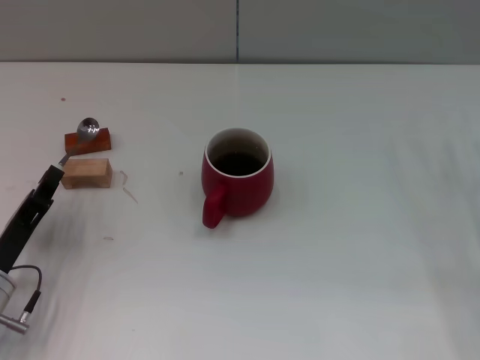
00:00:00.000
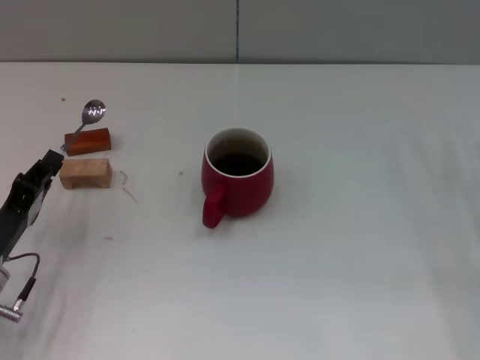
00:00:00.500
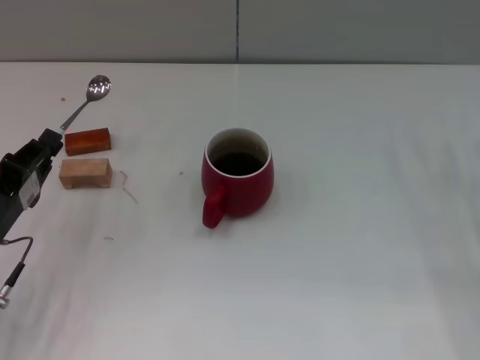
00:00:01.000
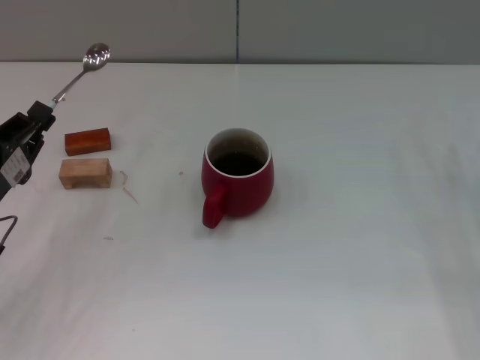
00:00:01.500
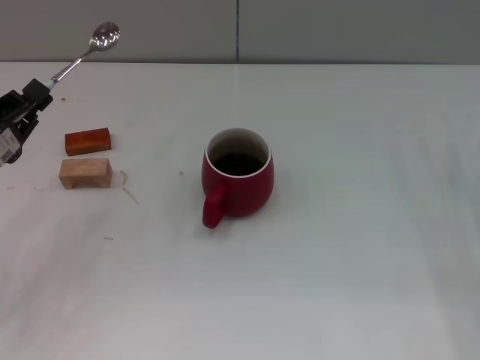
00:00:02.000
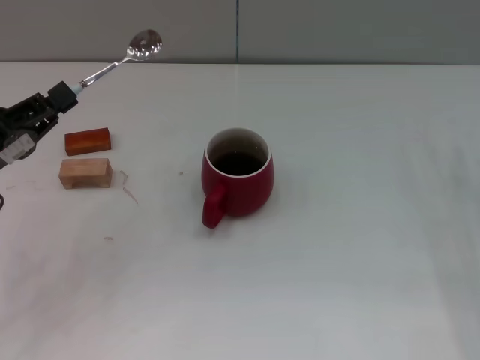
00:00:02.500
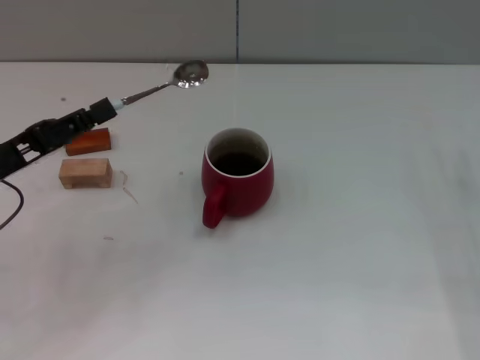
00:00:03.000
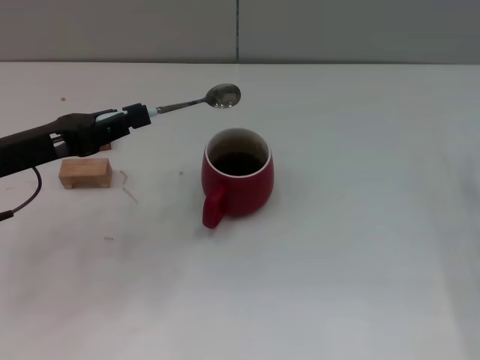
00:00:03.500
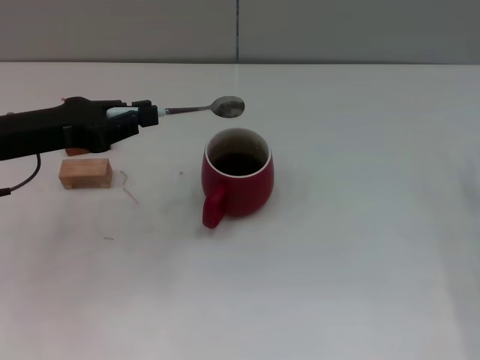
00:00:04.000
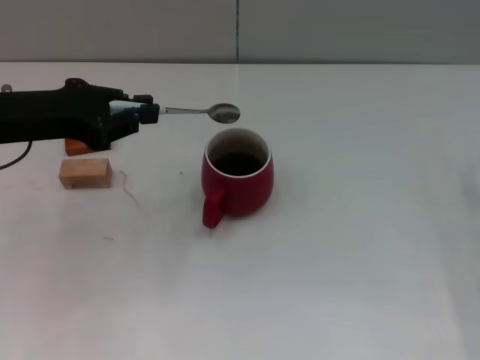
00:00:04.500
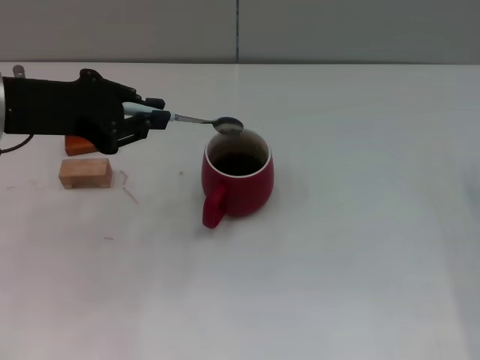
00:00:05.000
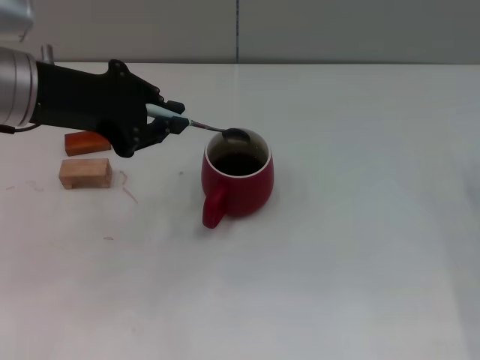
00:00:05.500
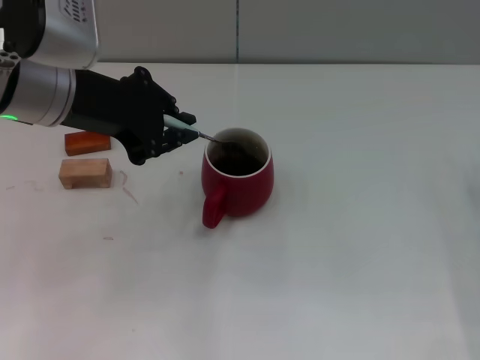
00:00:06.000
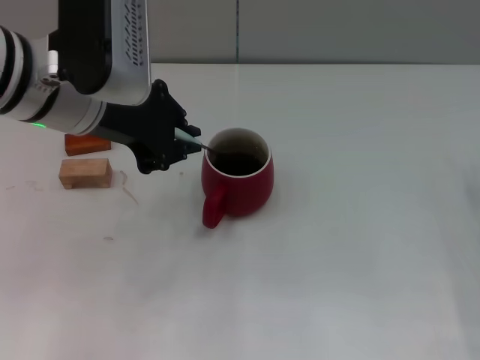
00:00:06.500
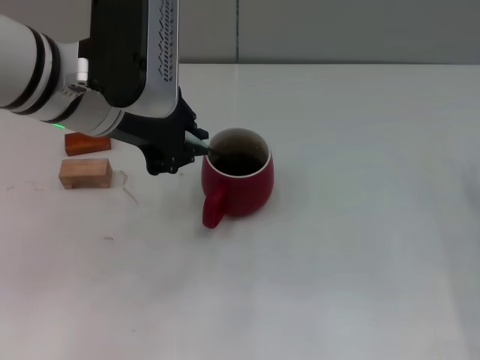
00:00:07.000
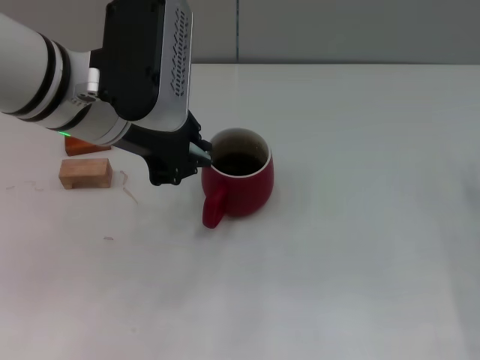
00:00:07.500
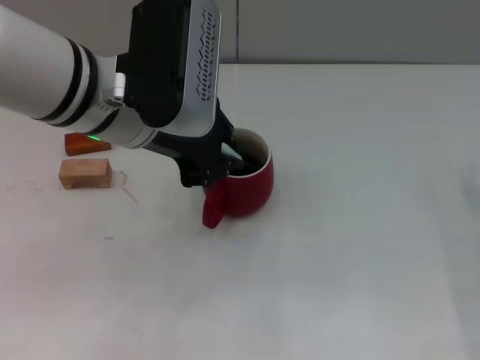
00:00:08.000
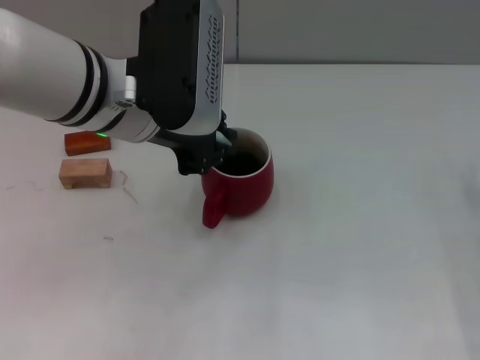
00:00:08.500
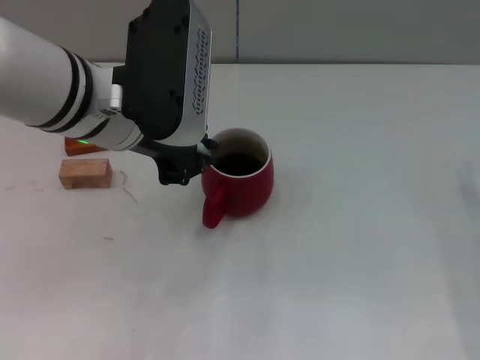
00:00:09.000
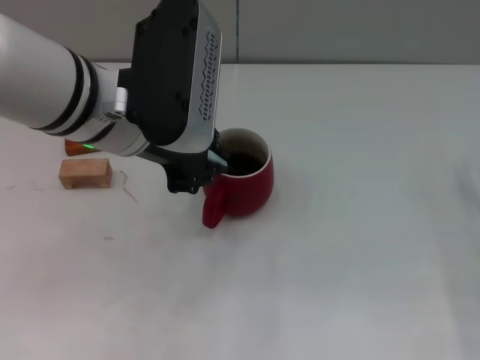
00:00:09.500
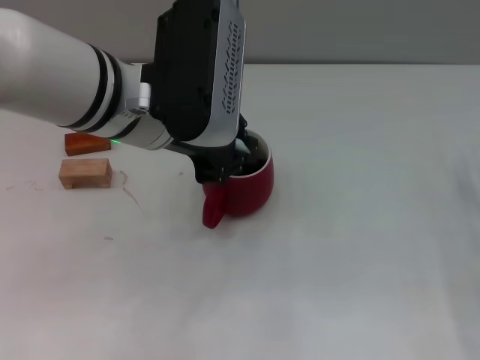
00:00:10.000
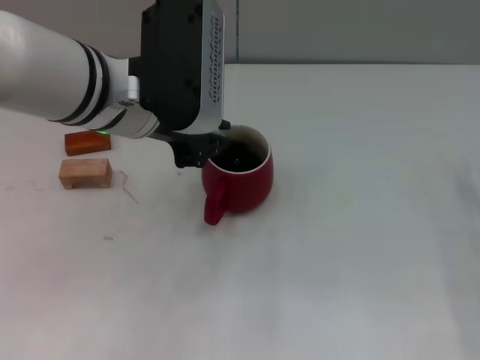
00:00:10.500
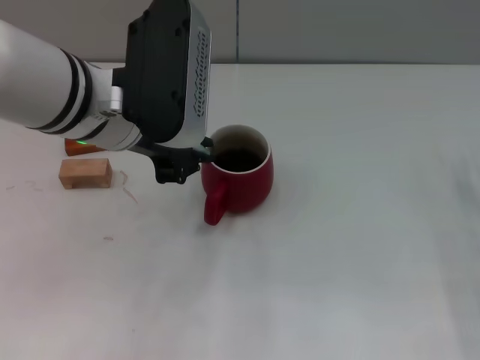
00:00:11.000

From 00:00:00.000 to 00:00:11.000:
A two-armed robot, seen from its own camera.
Task of the whole recording: Move the red cup to the center, lift the blue spoon, stir it three times in the cup, and put the spoon into the cup.
From 00:00:00.000 to 00:00:02.000: The left gripper travels upward by roughly 10 cm.
From 00:00:02.000 to 00:00:03.500: The left gripper moves upward, roughly 5 cm.
From 00:00:03.500 to 00:00:05.500: The left gripper travels upward and to the right by about 10 cm.
From 00:00:05.500 to 00:00:07.500: The left gripper heads to the right, covering some 10 cm.
From 00:00:07.500 to 00:00:11.000: There are only small adjustments of the grippers.

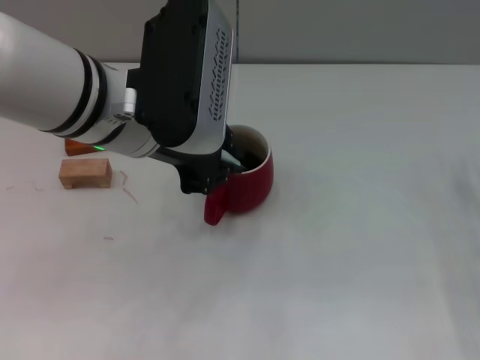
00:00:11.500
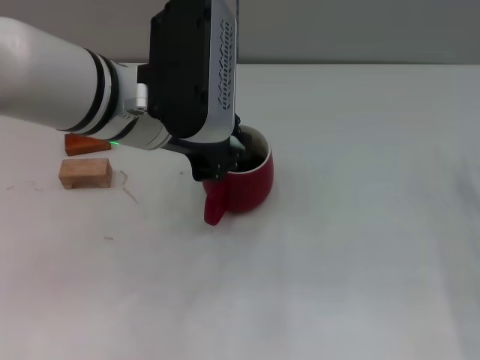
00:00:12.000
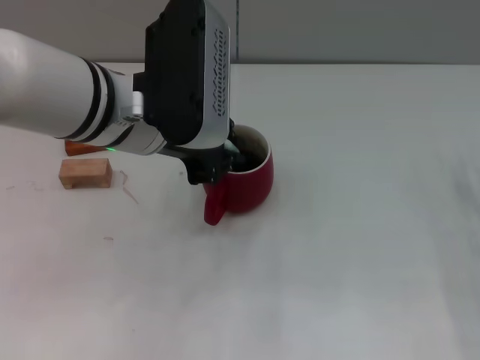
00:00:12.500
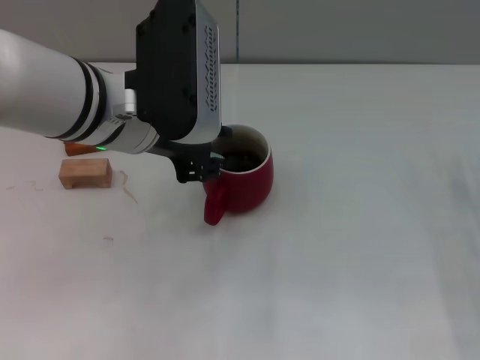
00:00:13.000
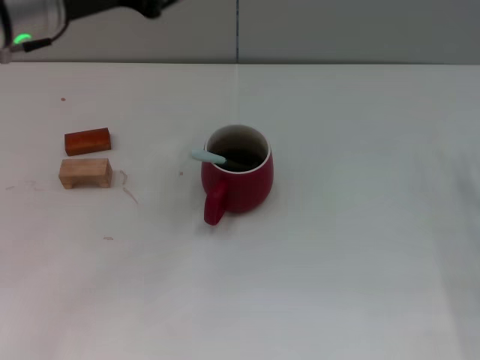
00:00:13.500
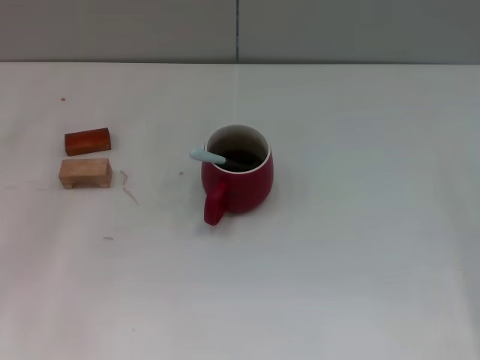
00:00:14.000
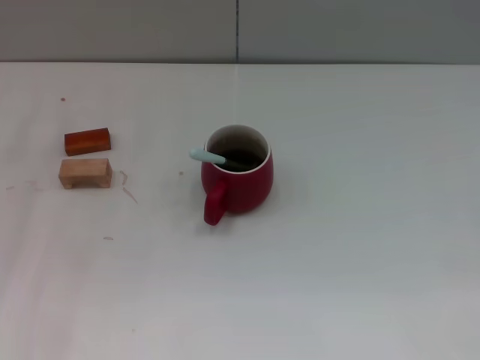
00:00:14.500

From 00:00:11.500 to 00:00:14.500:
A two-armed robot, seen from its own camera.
Task of the whole recording: Move the red cup to the center, lift the blue spoon, stir it three times in the cup, and put the spoon into the cup.
From 00:00:11.500 to 00:00:13.000: The grippers move only a little.
From 00:00:13.000 to 00:00:14.500: The left gripper is displaced to the left and downward by some 20 cm. The right gripper is displaced to the right by roughly 5 cm.

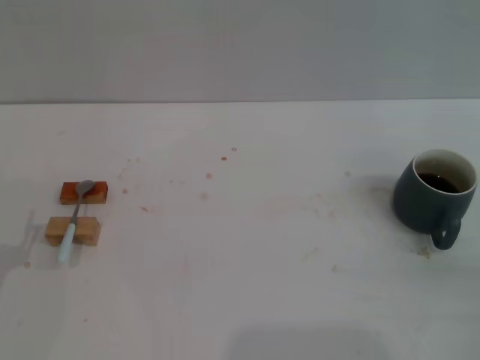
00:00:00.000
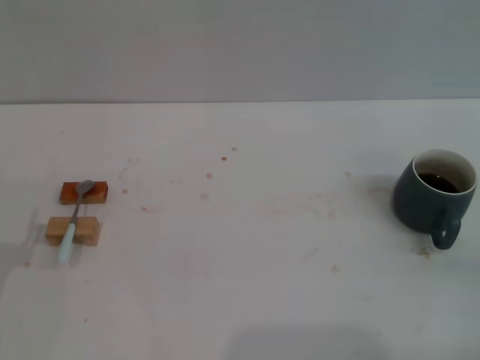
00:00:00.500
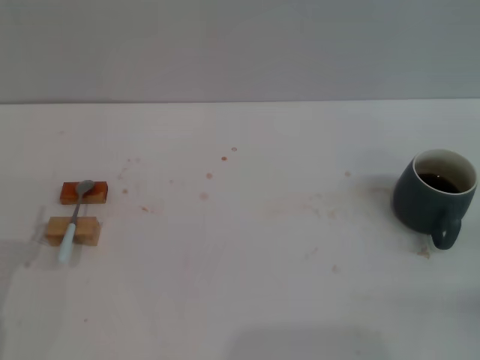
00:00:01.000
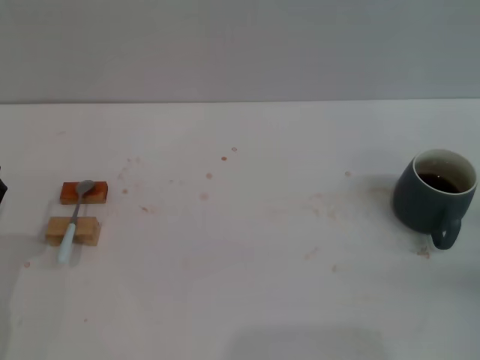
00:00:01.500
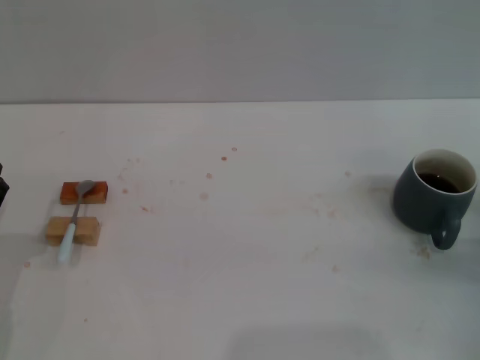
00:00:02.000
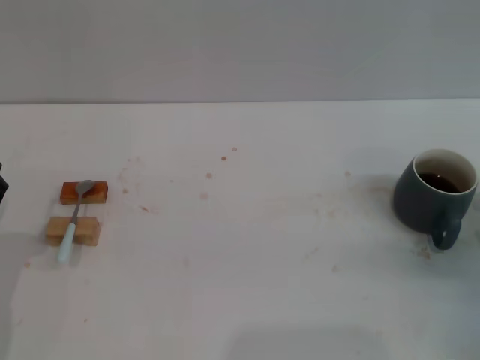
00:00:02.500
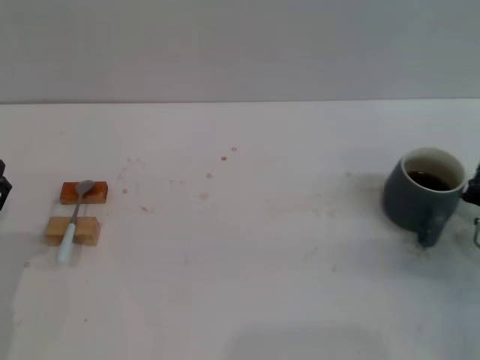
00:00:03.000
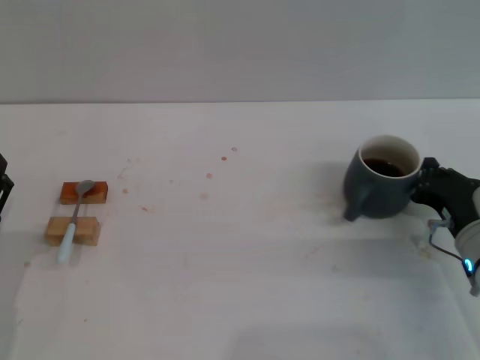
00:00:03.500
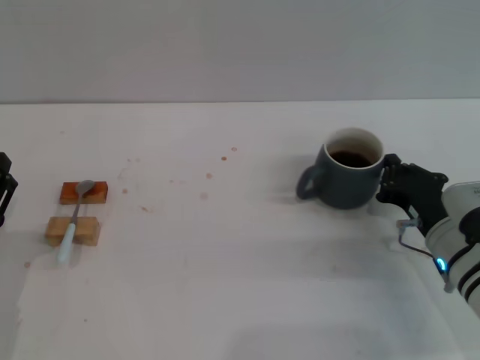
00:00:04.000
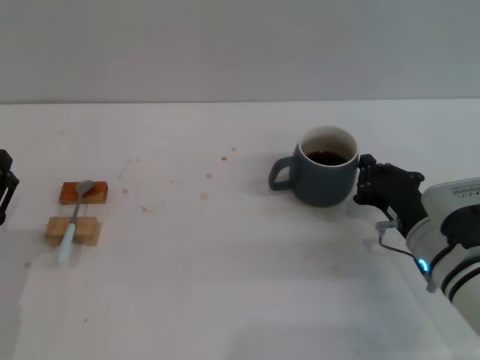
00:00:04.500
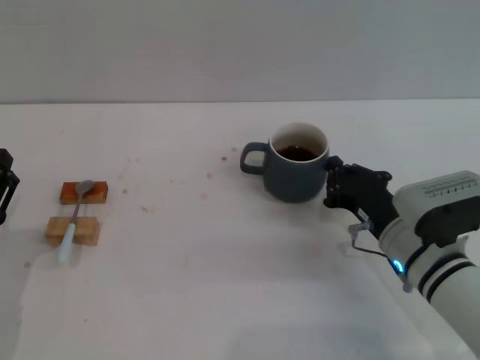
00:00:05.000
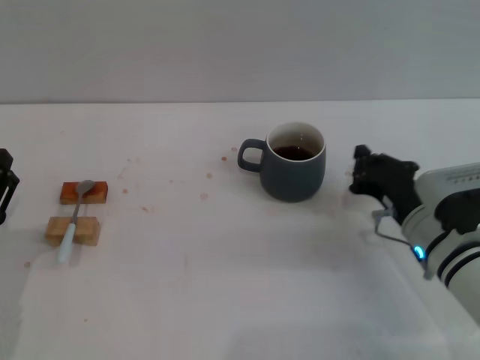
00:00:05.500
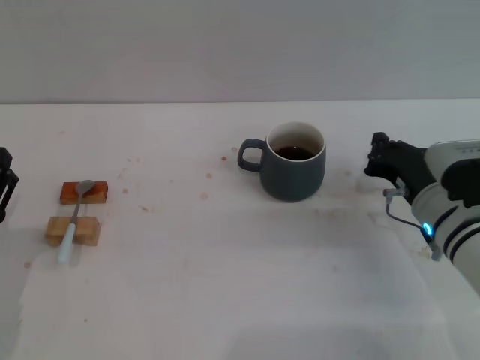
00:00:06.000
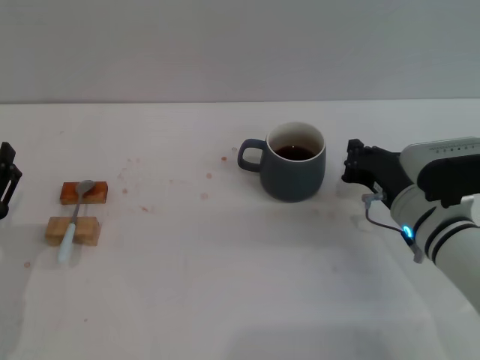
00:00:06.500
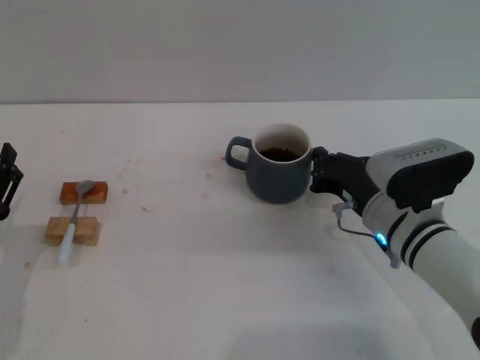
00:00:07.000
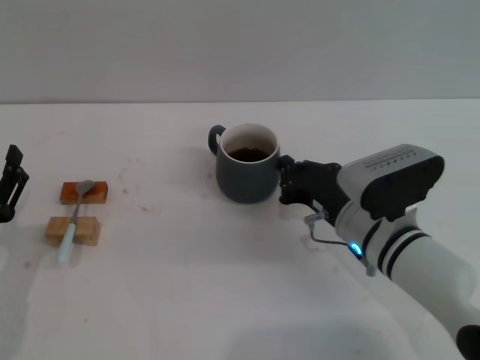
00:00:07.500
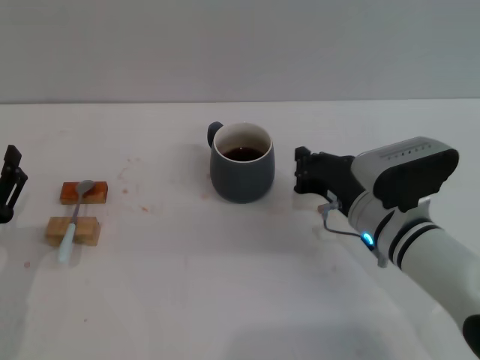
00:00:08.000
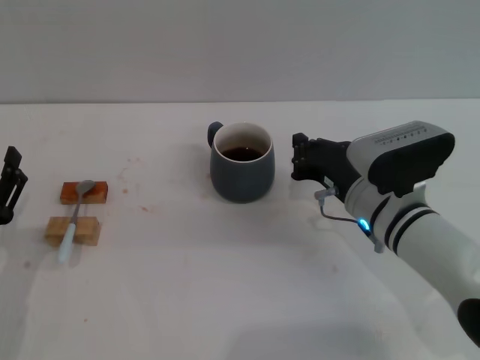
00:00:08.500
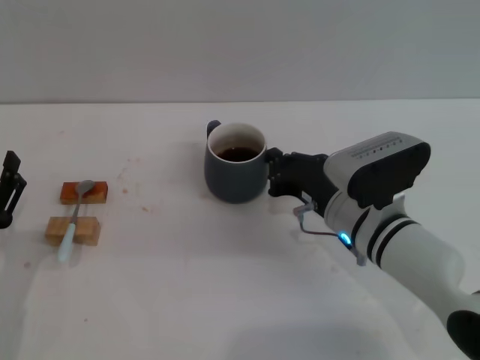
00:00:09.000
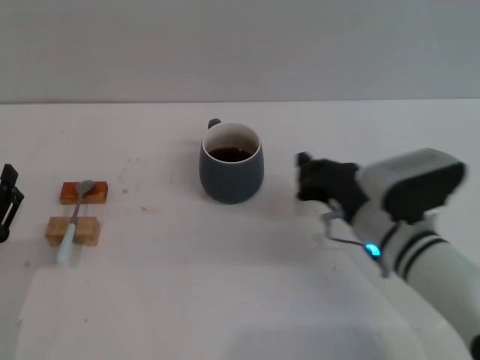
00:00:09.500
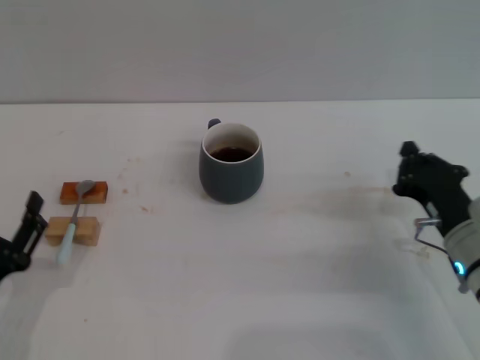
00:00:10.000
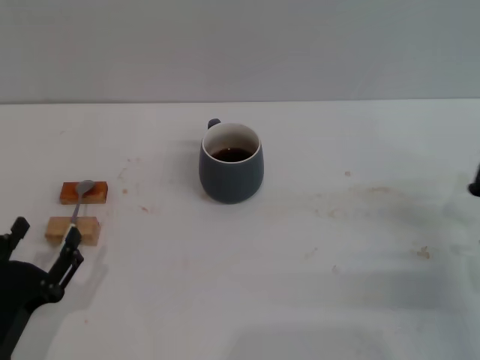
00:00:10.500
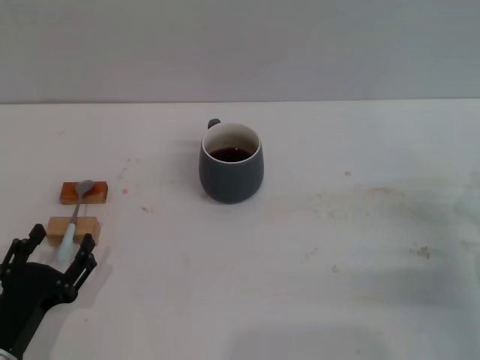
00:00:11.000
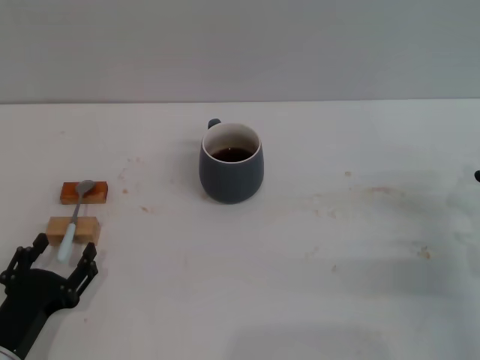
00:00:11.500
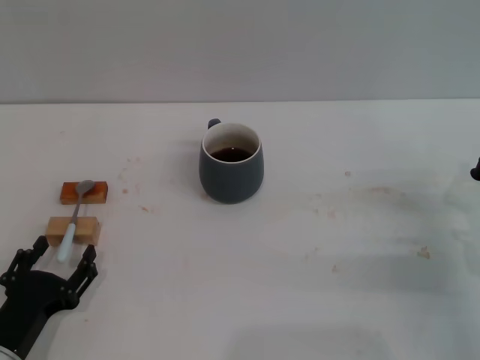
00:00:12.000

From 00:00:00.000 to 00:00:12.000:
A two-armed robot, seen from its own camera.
Task of the whole recording: Move the grey cup to the center, lift the blue spoon, stir it three times in the cup, and put the spoon into the cup.
Step, from 00:00:00.000 to 00:00:08.000: Move the cup with coffee to the center of view with the right gripper.
From 00:00:02.000 to 00:00:04.000: The right gripper moves to the left, roughly 10 cm.
From 00:00:04.000 to 00:00:06.000: There are only small adjustments of the grippers.
From 00:00:06.000 to 00:00:08.000: The right gripper heads to the left, covering some 5 cm.
From 00:00:08.000 to 00:00:10.000: The right gripper goes about 10 cm to the right.
From 00:00:10.000 to 00:00:12.000: The right gripper shifts approximately 5 cm to the right.
